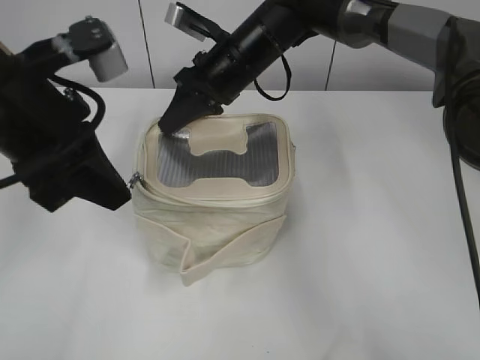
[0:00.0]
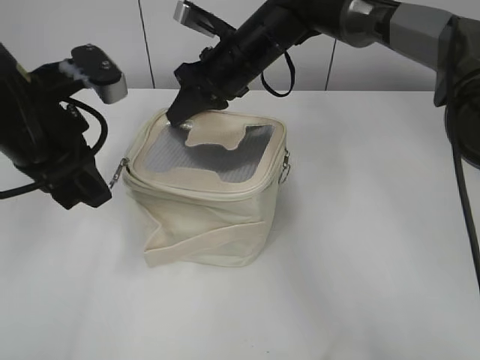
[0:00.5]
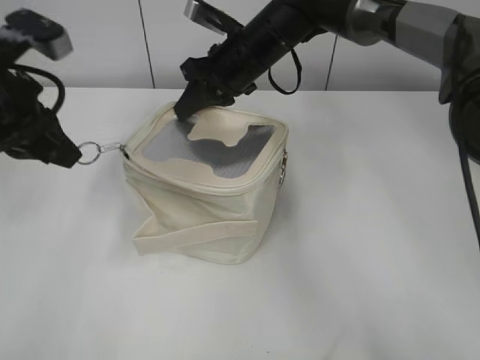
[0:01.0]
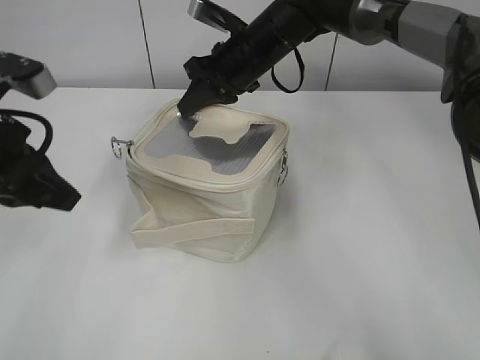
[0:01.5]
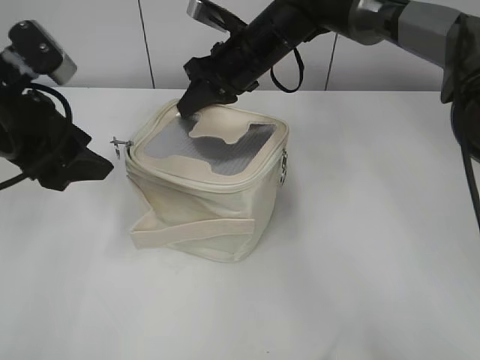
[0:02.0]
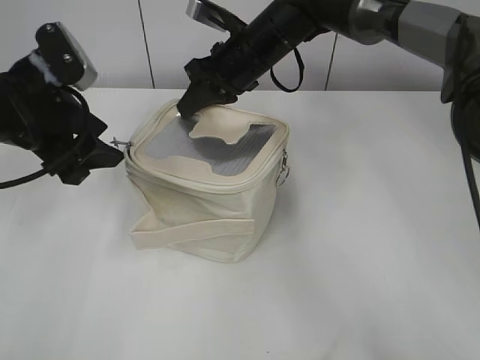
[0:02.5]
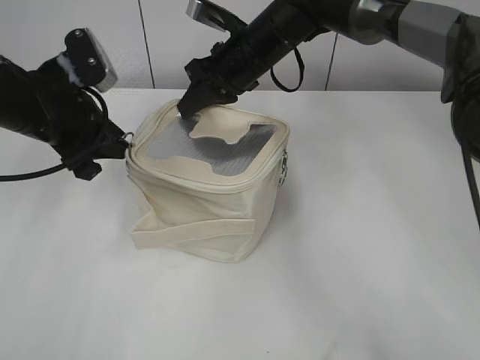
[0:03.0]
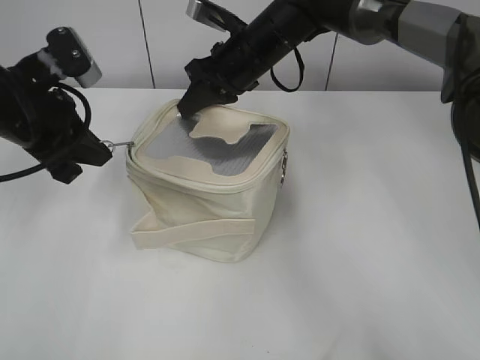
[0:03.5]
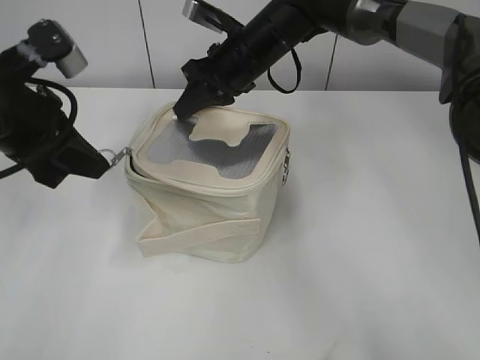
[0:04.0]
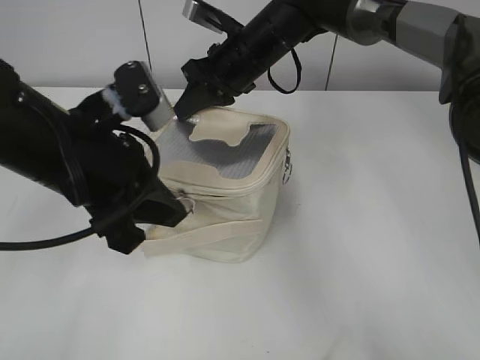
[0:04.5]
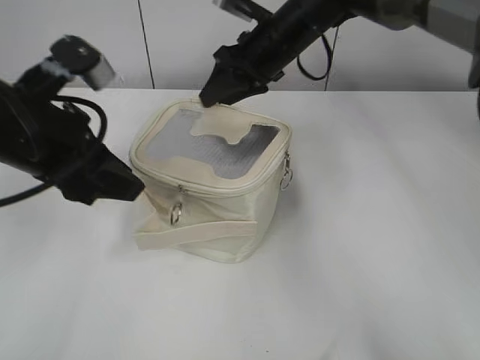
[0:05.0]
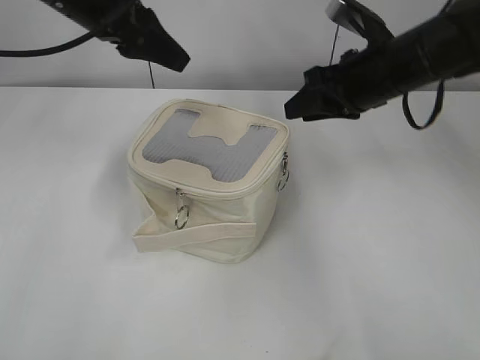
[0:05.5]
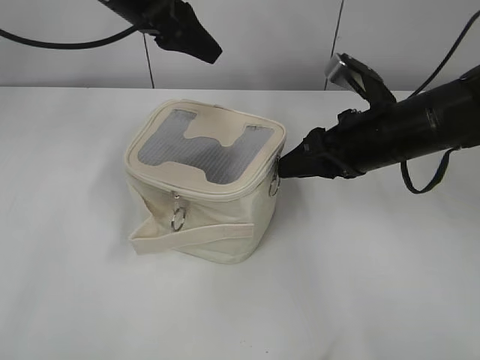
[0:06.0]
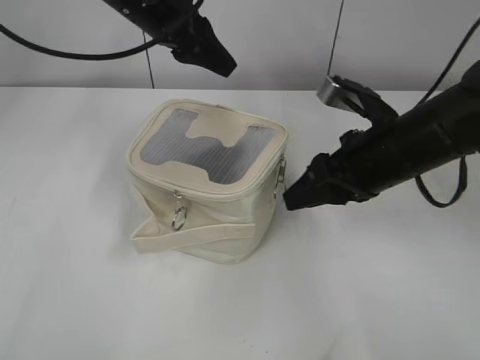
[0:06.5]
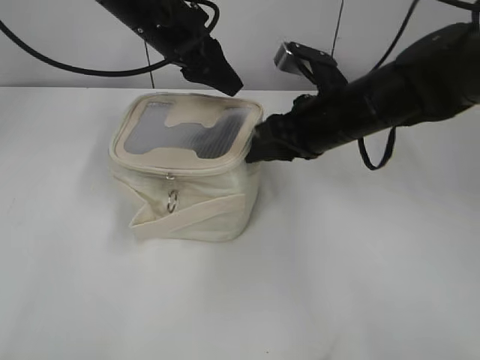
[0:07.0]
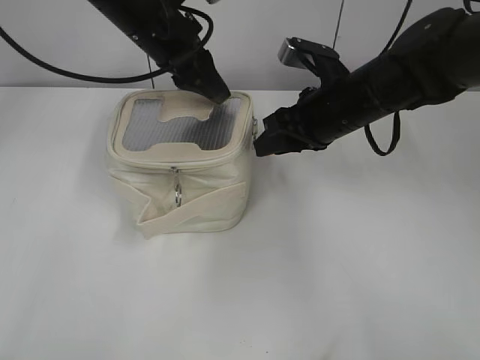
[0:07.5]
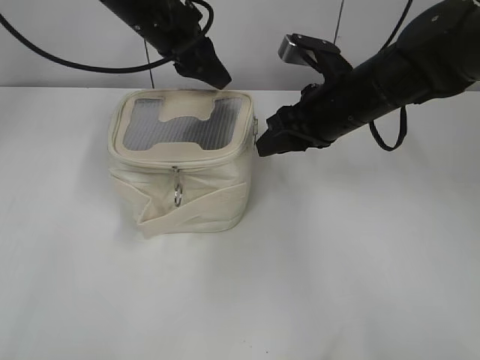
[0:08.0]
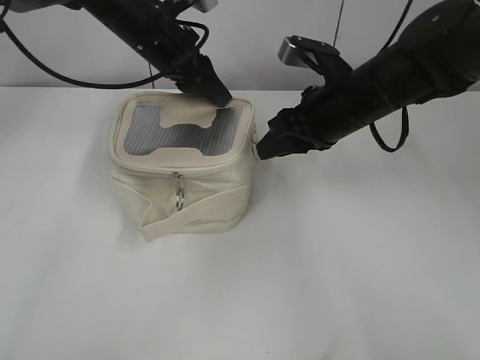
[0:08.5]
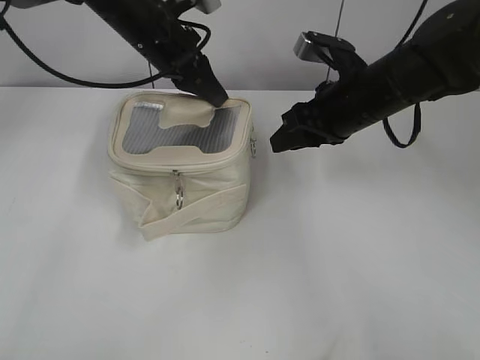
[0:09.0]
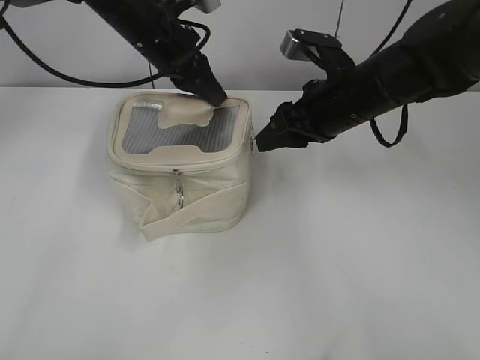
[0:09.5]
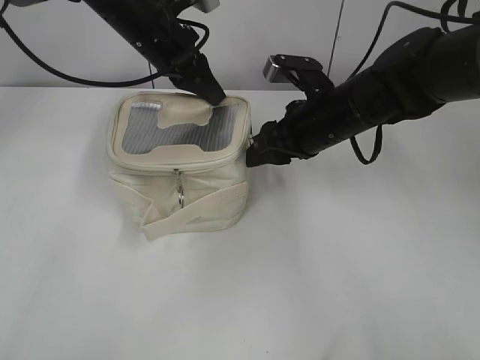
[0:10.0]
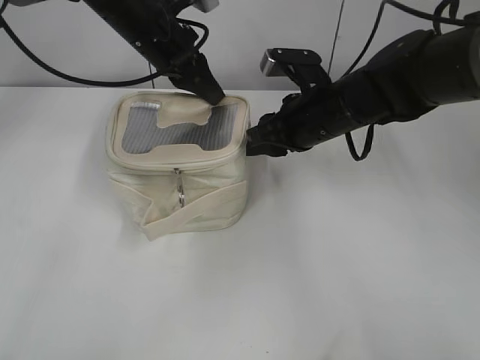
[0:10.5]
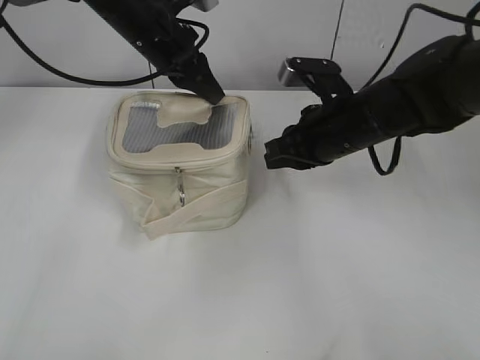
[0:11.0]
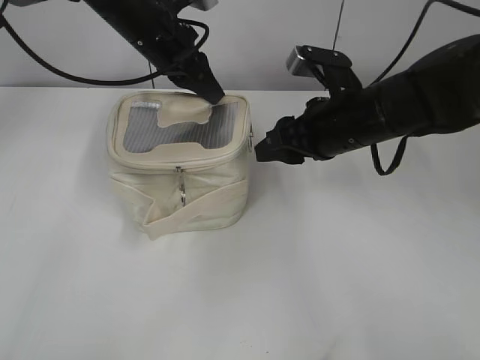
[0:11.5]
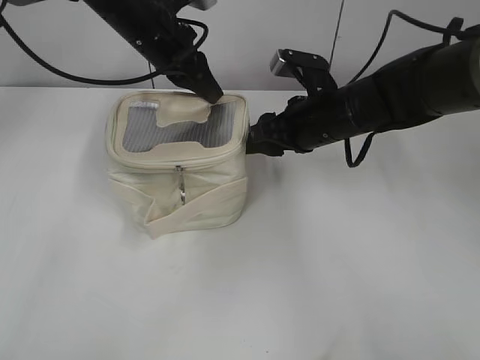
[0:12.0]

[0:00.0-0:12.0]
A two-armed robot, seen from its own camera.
Step, 0:00.0 to 0:04.5: Zip up the bag with your left hand.
0:00.0 to 0:02.0: The left gripper shifts roughly 5 cm to the left, and opens up.
0:02.0 to 0:04.0: The left gripper closes.
0:04.0 to 0:06.0: The right gripper heads to the right and backward, covering roughly 20 cm, and opens up; the left gripper travels forward and to the right by some 15 cm, and opens.
0:06.0 to 0:08.0: The right gripper changes place by approximately 5 cm.
0:08.0 to 0:10.0: The left gripper closes.
0:10.0 to 0:12.0: The right gripper closes, then opens again.

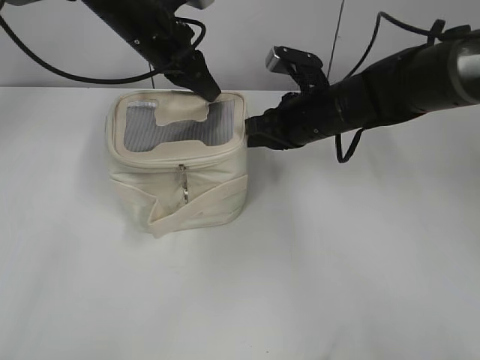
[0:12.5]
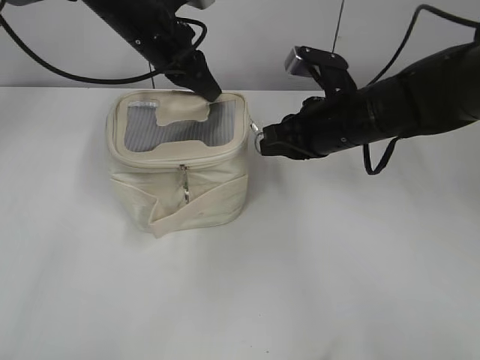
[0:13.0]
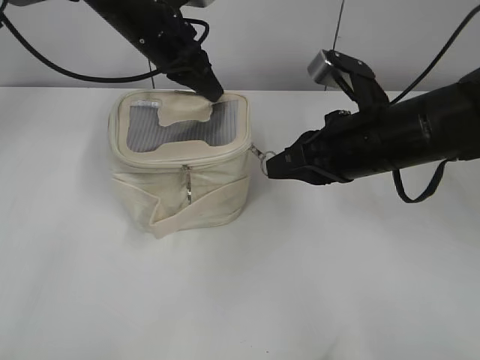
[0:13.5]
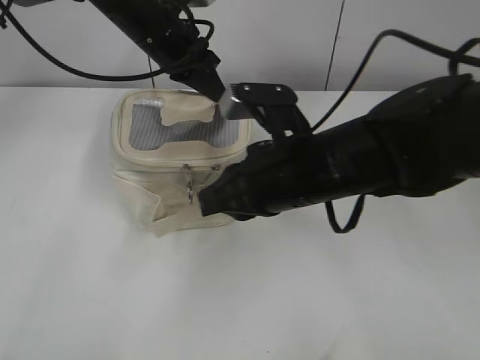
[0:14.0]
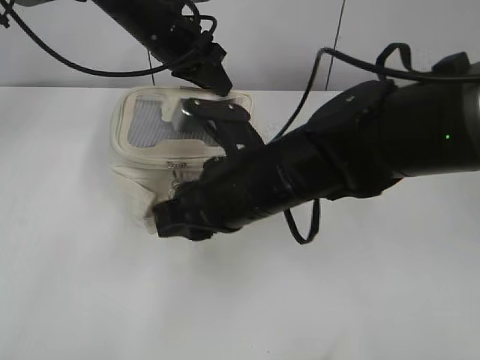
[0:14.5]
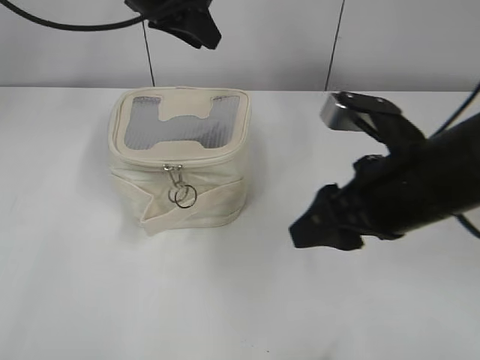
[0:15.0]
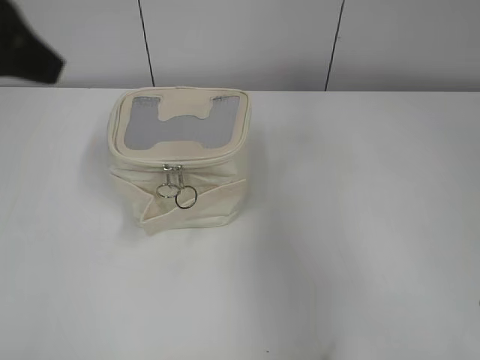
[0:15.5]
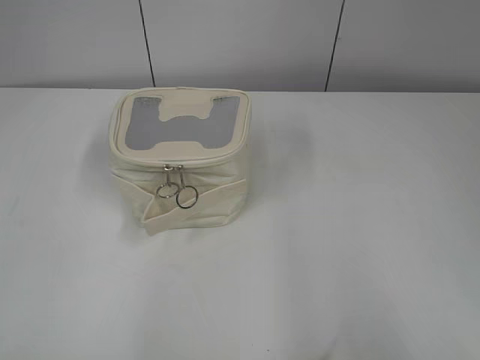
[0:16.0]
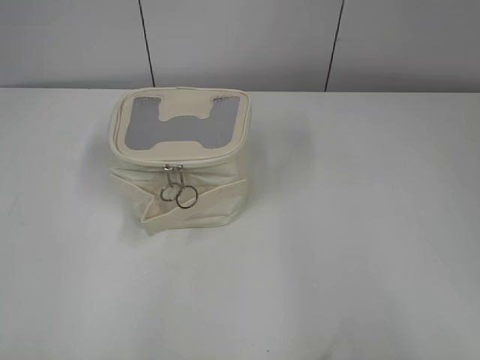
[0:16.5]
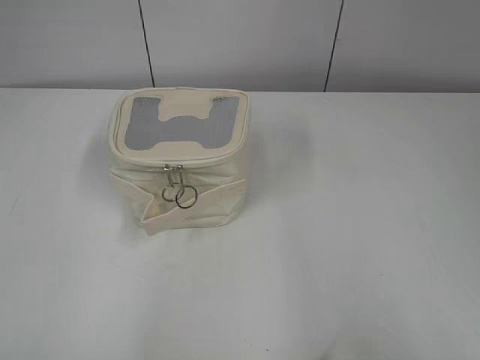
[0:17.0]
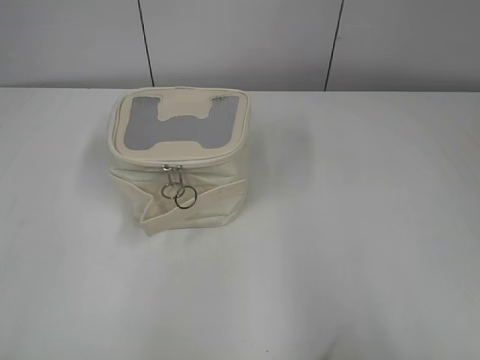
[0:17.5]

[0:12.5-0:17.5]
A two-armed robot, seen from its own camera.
0:12.5 to 0:15.0: The left gripper is displaced upward by approximately 5 cm, and opens its fingers, while the right gripper moves backward, roughly 15 cm, and opens its fingers.
0:15.0 to 0:17.5: The left gripper shifts roughly 50 cm backward and to the left. The right gripper shifts about 25 cm backward and to the right.

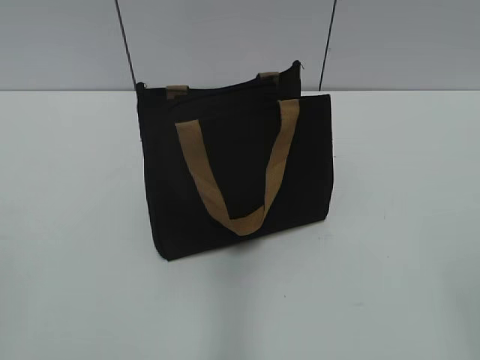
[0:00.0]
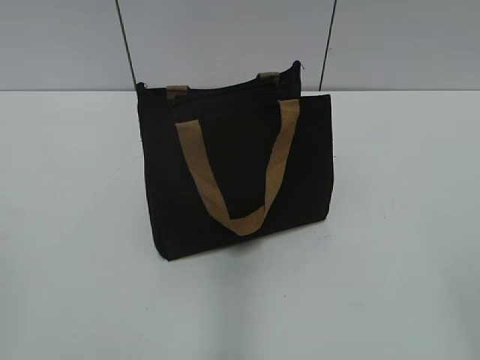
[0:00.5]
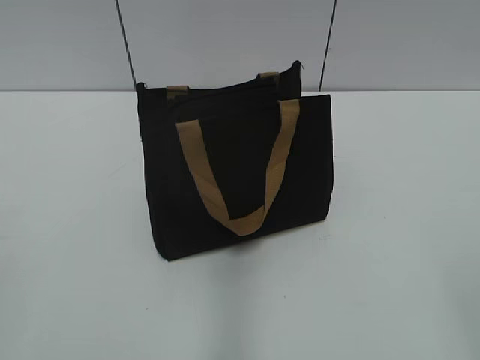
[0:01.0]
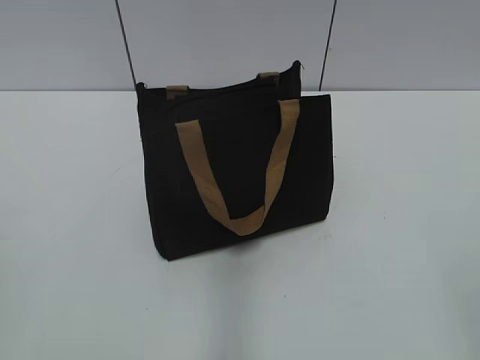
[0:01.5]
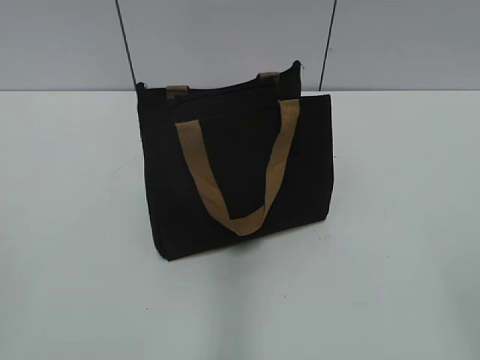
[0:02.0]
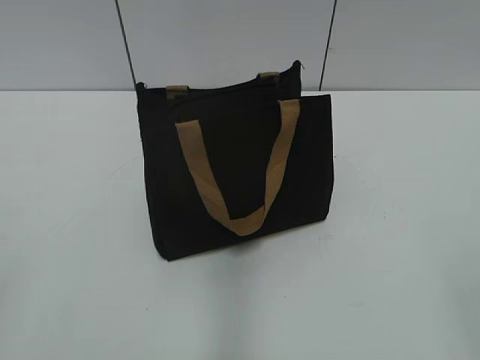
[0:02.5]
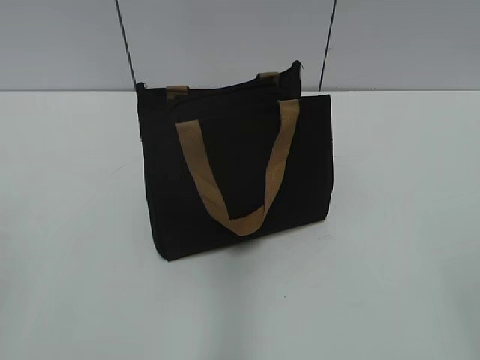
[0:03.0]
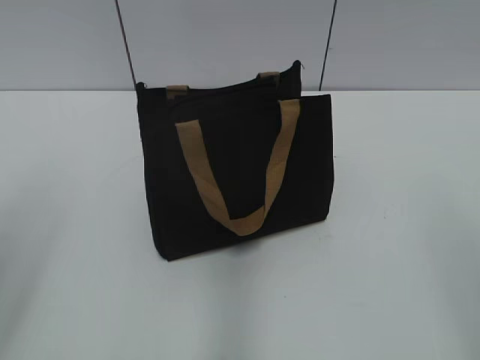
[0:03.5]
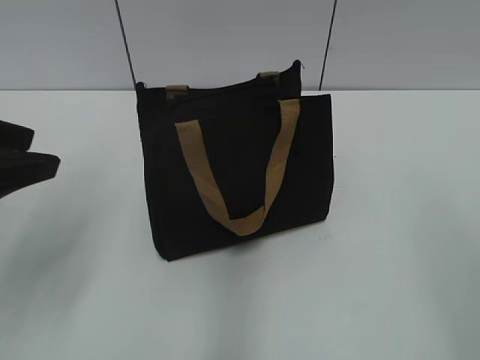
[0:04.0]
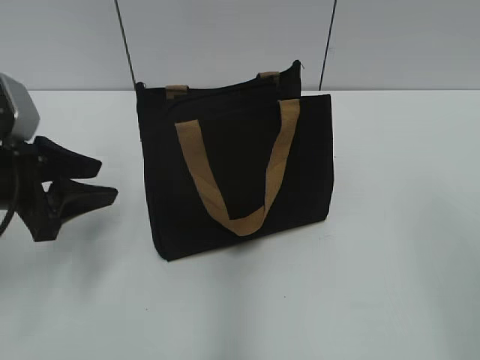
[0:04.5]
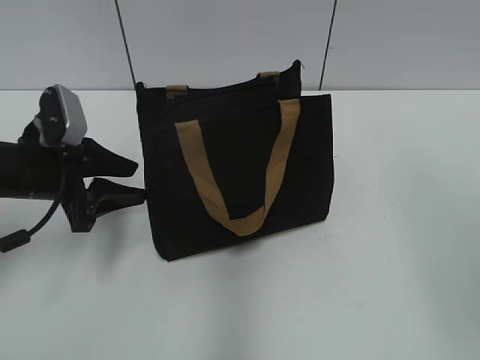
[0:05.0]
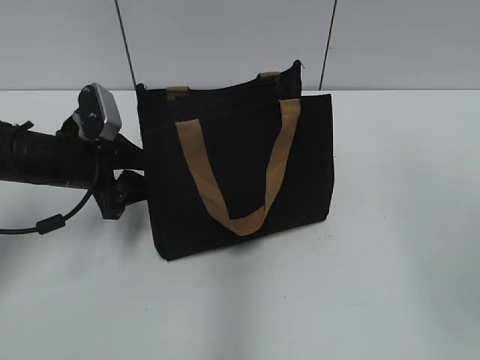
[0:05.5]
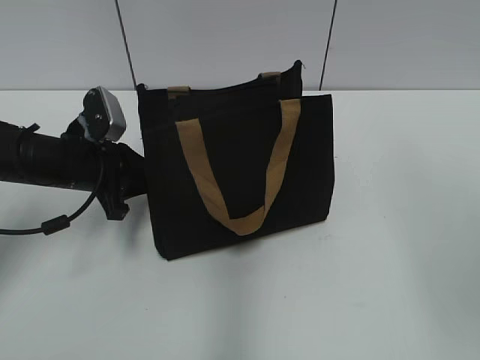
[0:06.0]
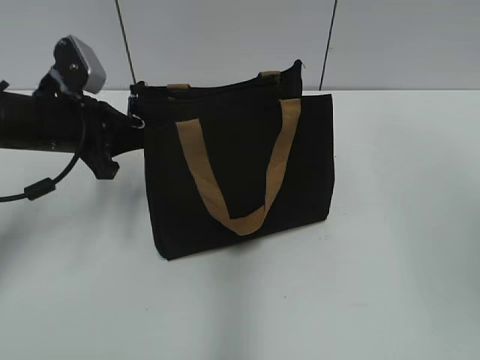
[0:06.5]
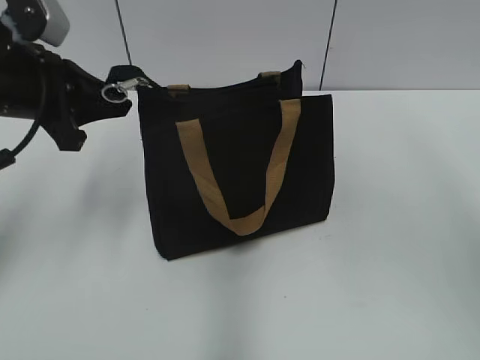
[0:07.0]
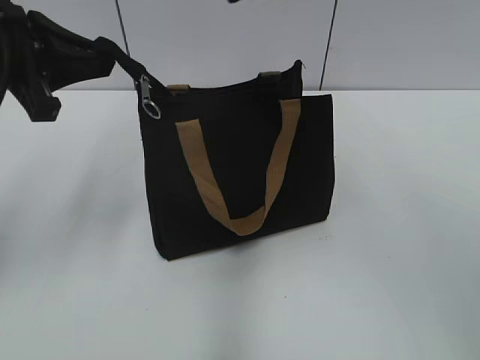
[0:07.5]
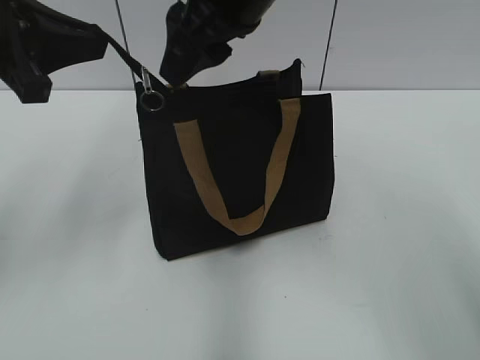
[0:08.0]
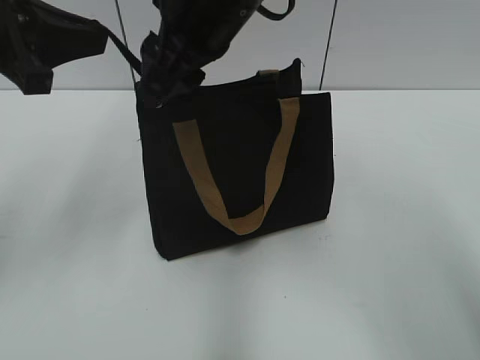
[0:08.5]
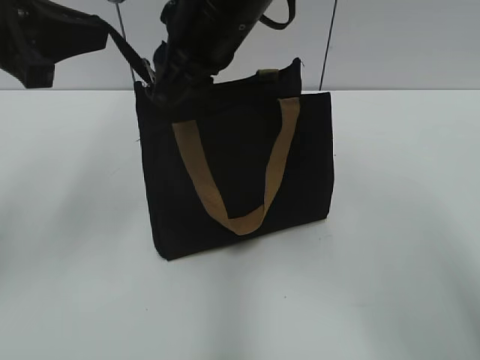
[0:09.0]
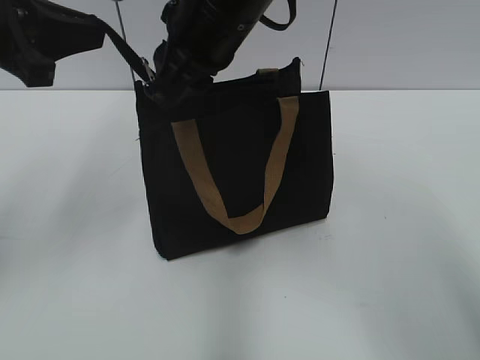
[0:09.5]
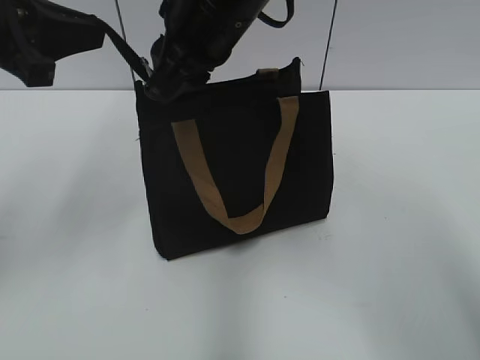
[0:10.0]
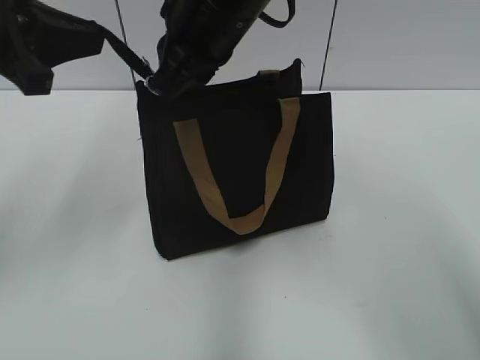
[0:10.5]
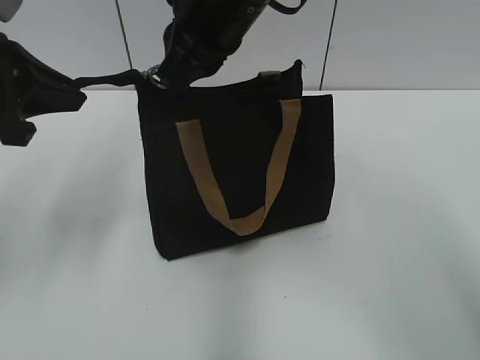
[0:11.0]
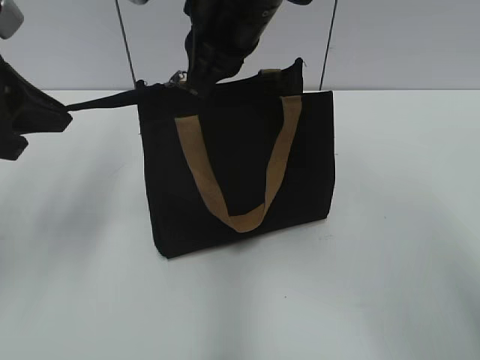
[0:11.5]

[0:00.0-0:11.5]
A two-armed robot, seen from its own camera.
0:02.0 to 0:04.0: The left gripper heads forward, covering about 20 cm, and opens.
0:04.0 to 0:06.0: The left gripper travels forward and downward by approximately 20 cm, and closes.
0:06.0 to 0:07.5: The left gripper goes about 15 cm upward, and closes up.
0:07.5 to 0:09.5: The right gripper goes roughly 15 cm downward and to the left, and closes its fingers.
0:09.5 to 0:11.5: The right gripper closes.
